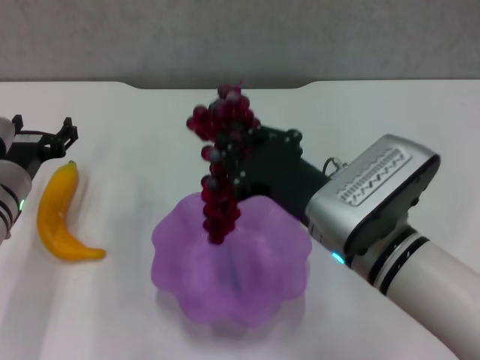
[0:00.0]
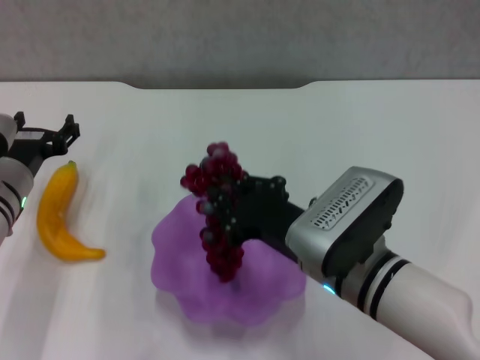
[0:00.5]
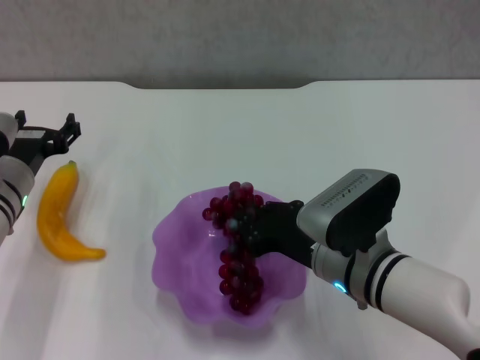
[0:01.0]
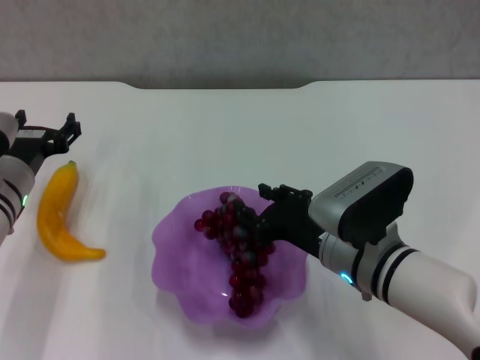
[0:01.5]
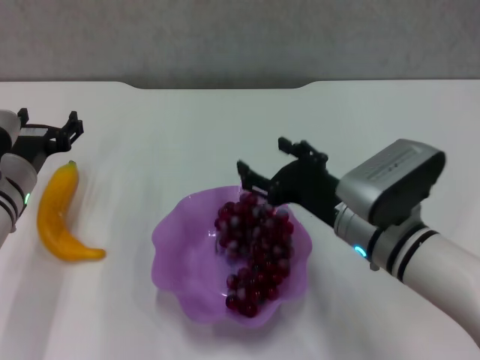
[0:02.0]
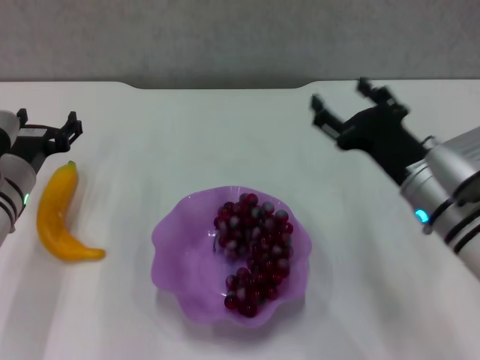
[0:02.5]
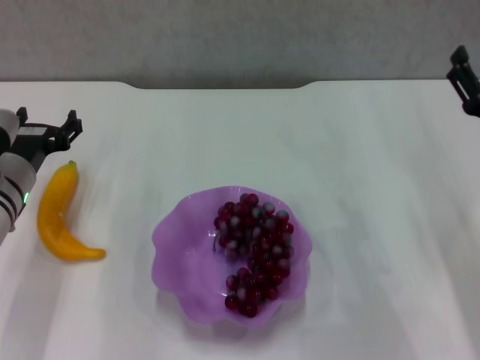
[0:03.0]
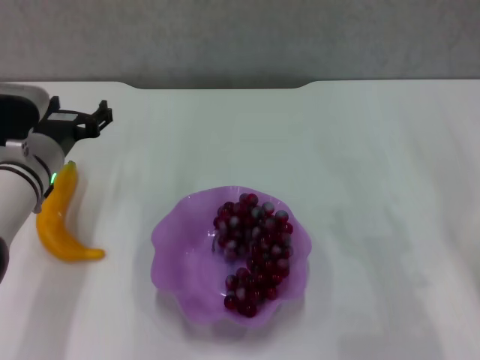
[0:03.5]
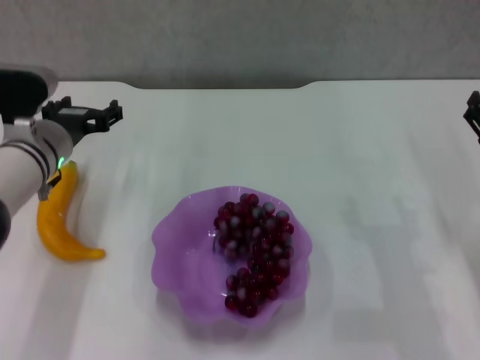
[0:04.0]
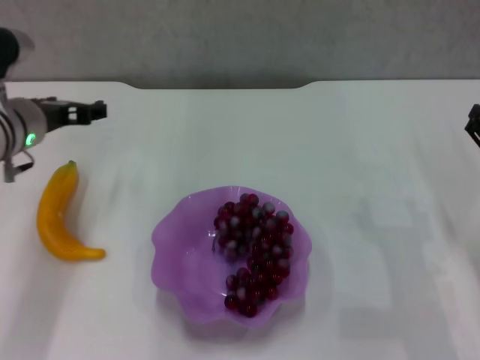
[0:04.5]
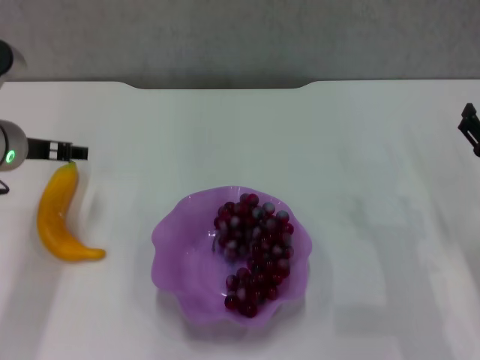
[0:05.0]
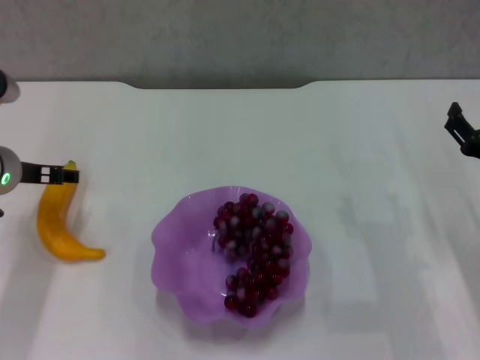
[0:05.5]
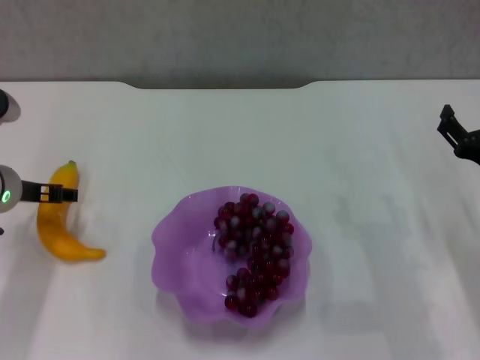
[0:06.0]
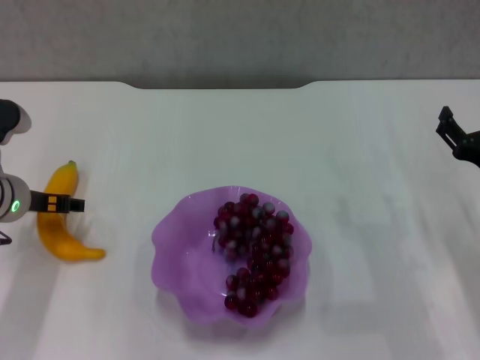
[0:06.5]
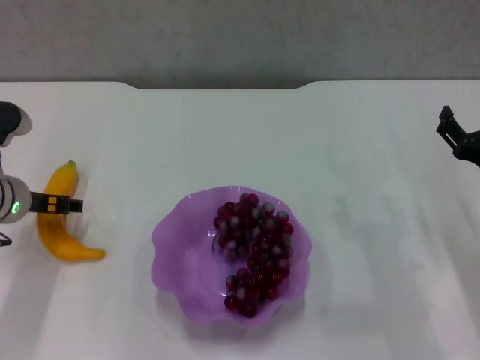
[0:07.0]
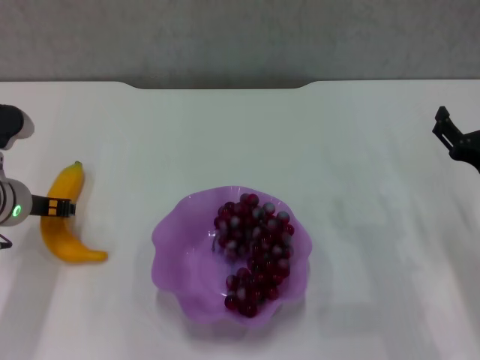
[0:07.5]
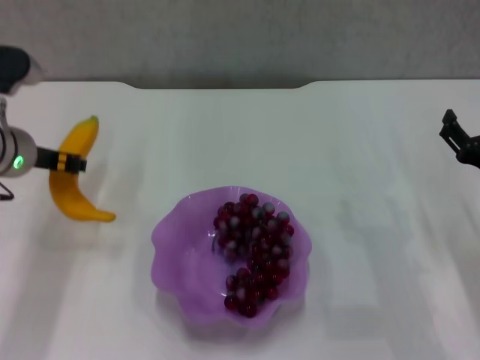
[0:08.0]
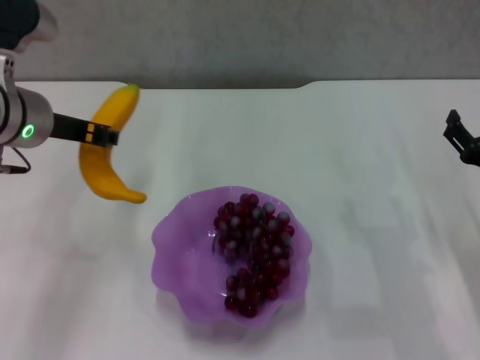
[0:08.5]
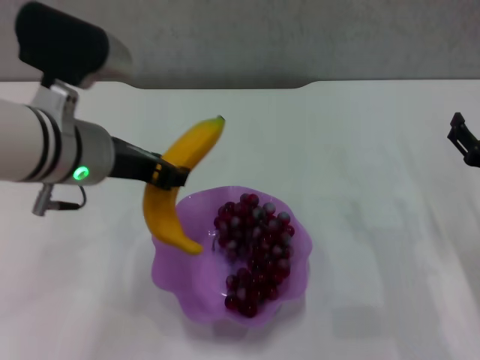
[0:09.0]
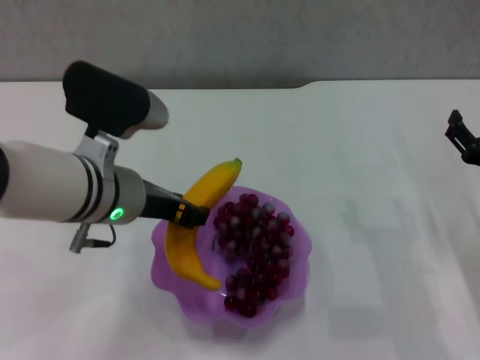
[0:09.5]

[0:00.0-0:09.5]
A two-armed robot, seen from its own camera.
Step, 0:02.0 to 0:07.5: Grasp the banana with left gripper.
0:00.0 to 0:02.0: The right gripper changes place by roughly 5 cm, and opens up.
0:02.0 to 0:04.0: The left gripper moves about 5 cm. The right gripper heads to the right, covering roughly 15 cm.
0:04.0 to 0:05.5: The left gripper changes place by about 5 cm.
0:05.5 to 0:07.5: The left gripper closes its fingers.
0:07.5 to 0:09.5: The left gripper moves to the right and upward, roughly 15 cm.

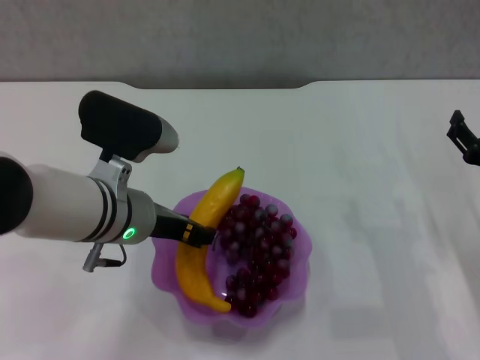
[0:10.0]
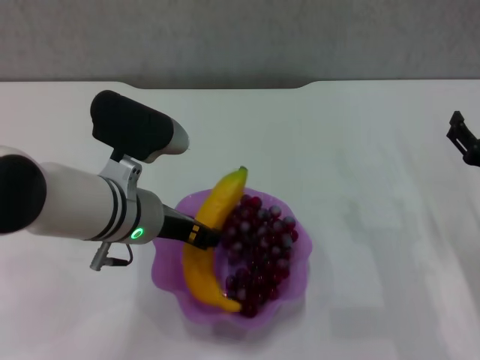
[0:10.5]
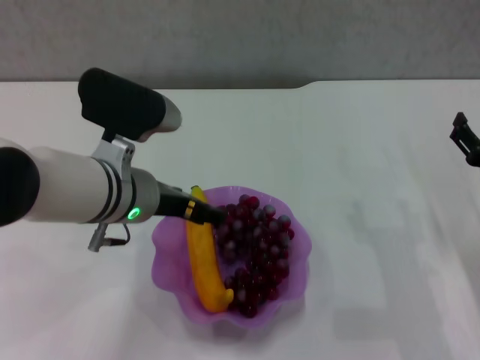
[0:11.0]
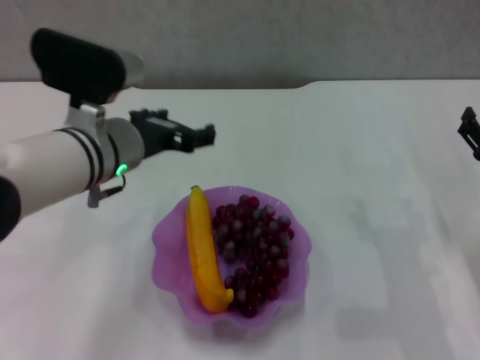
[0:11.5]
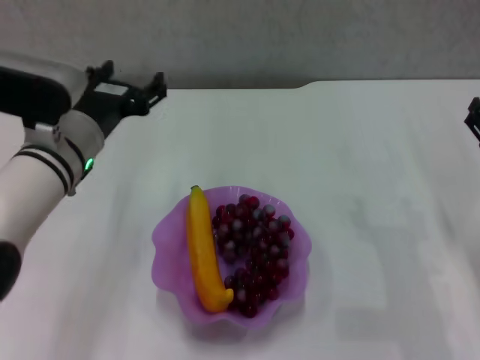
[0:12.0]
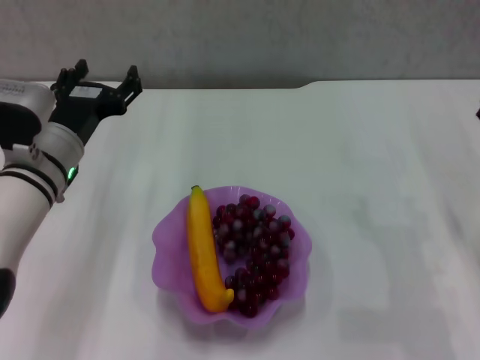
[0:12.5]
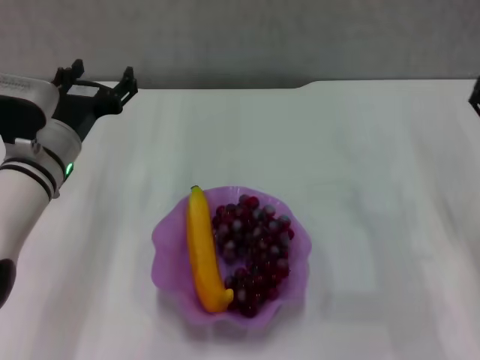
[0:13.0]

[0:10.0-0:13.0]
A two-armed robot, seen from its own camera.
0:10.0 to 0:11.5: The left gripper opens.
0:11.5 to 0:13.0: The left gripper shifts some 10 cm to the left and downward.

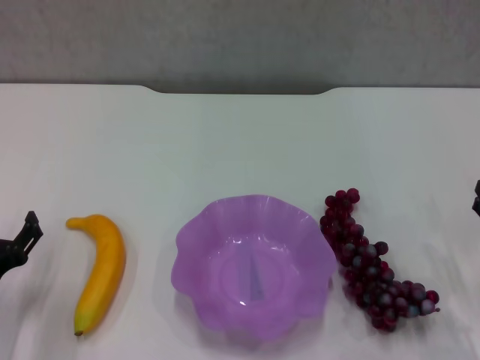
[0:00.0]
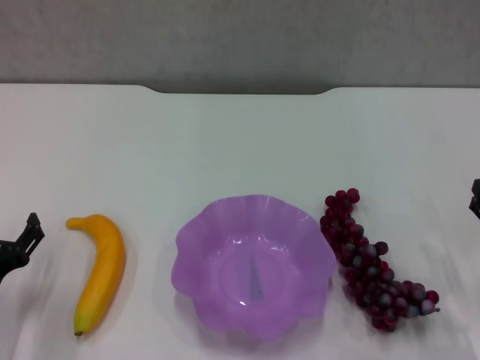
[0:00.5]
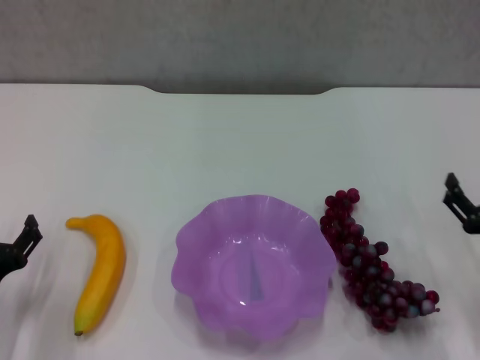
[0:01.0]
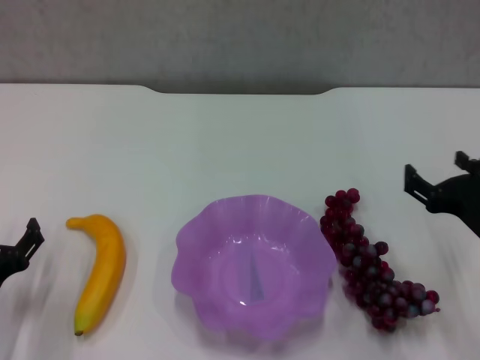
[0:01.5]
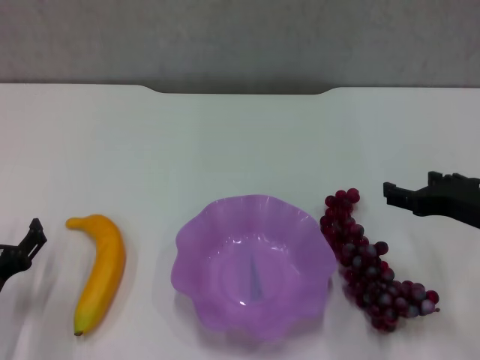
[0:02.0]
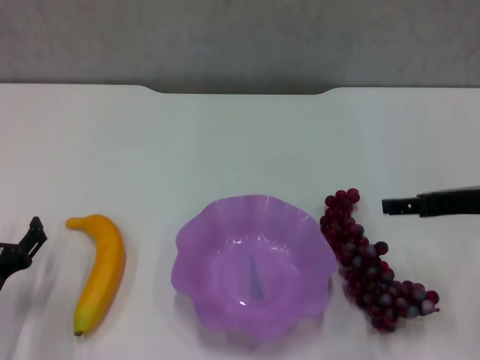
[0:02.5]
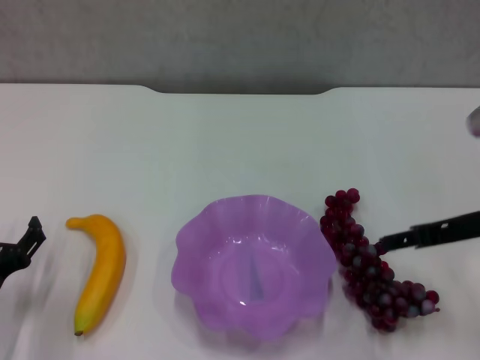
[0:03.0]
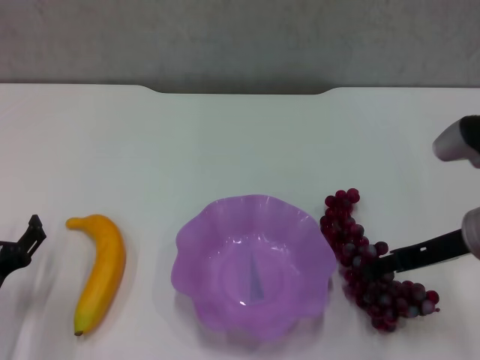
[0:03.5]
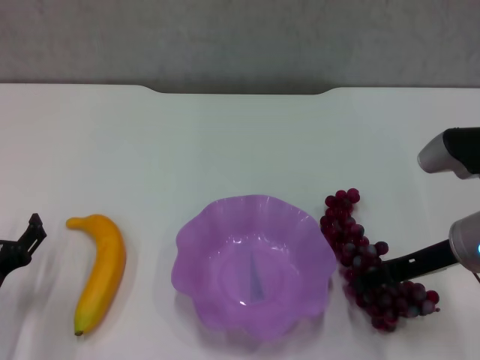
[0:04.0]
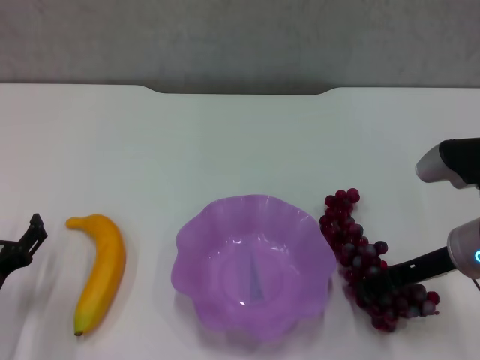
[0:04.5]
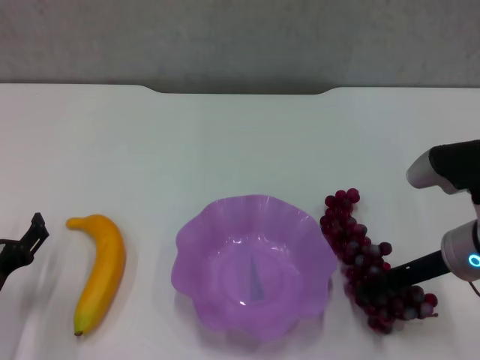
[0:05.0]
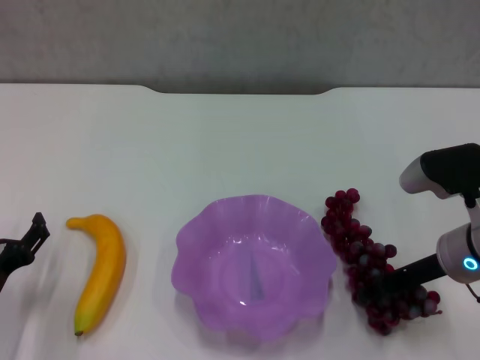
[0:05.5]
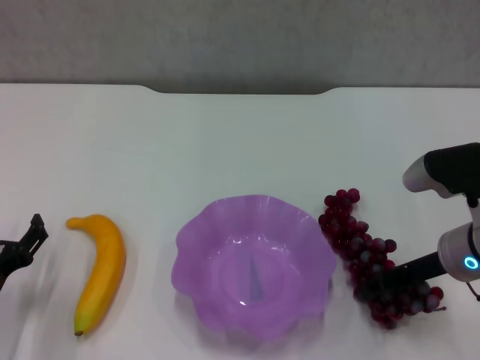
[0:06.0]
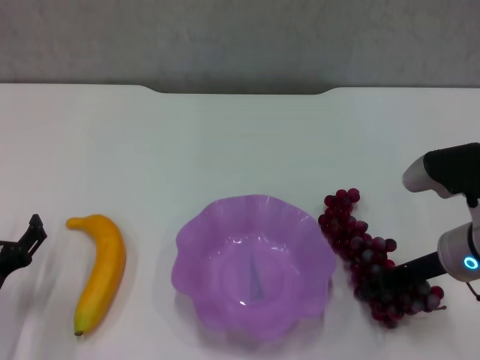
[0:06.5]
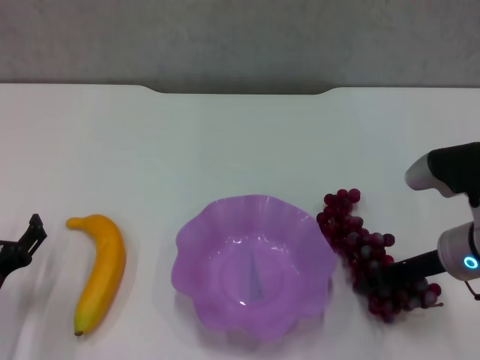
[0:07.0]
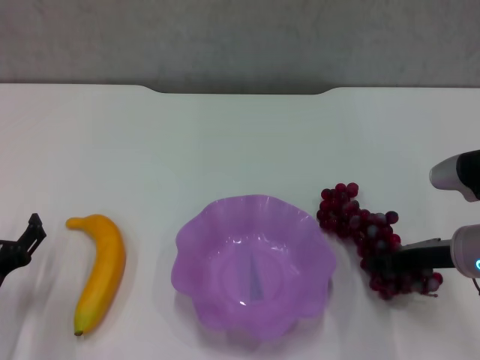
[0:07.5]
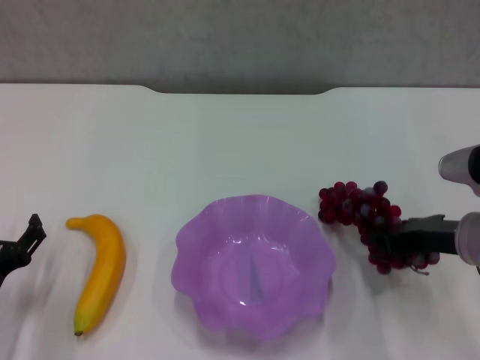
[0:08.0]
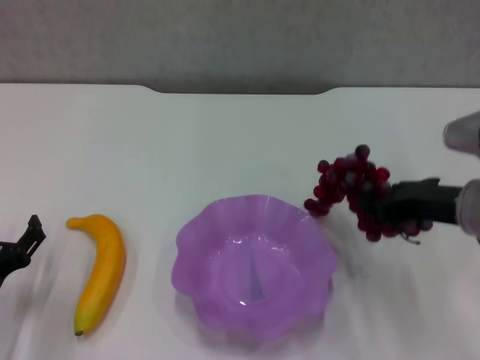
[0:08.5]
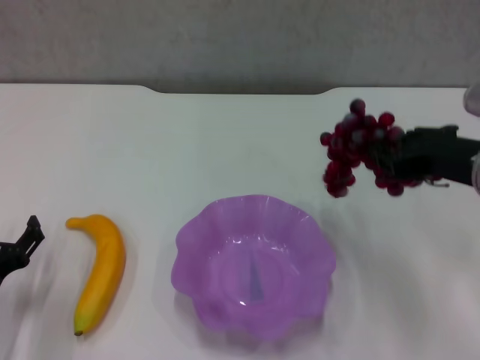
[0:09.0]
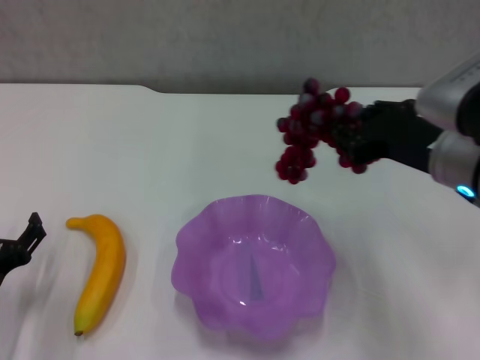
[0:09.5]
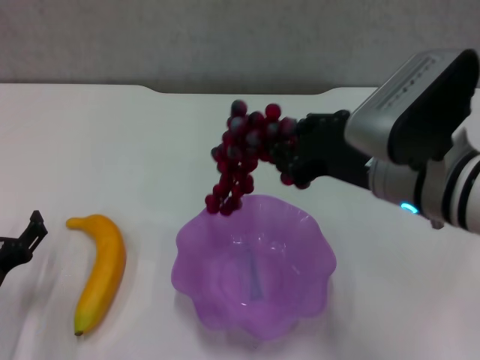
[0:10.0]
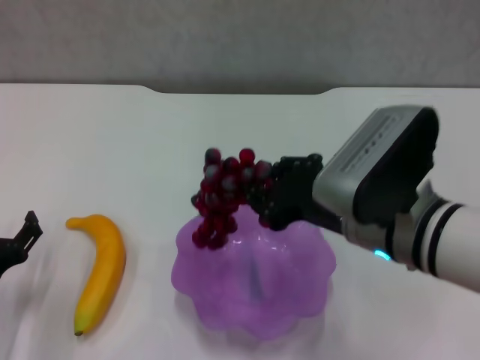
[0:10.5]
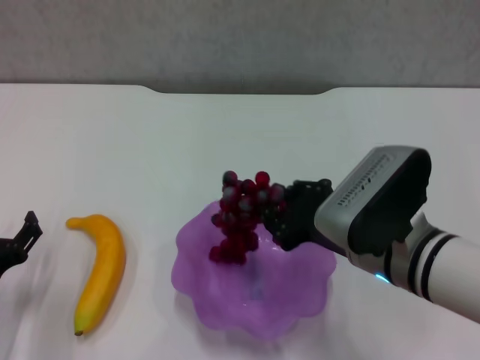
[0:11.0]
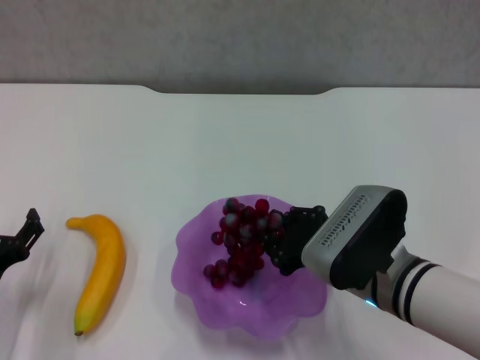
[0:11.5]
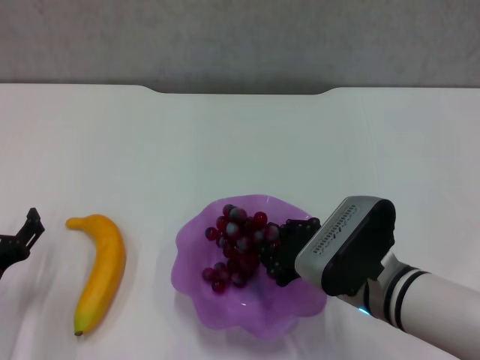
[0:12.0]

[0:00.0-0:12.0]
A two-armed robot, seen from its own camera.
Step, 0:00.0 to 0:05.5: Grasp the grape with right gripper.
0:00.0 to 0:02.0: The right gripper moves upward, to the left and forward, roughly 15 cm.
0:04.0 to 0:06.0: The right gripper closes its fingers.
0:08.0 to 0:10.0: The right gripper moves to the left and upward, approximately 15 cm.
0:10.0 to 0:12.0: The right gripper goes some 15 cm downward.

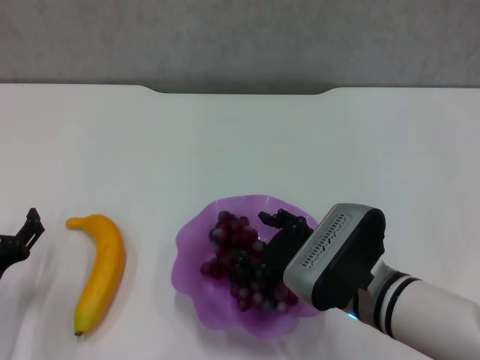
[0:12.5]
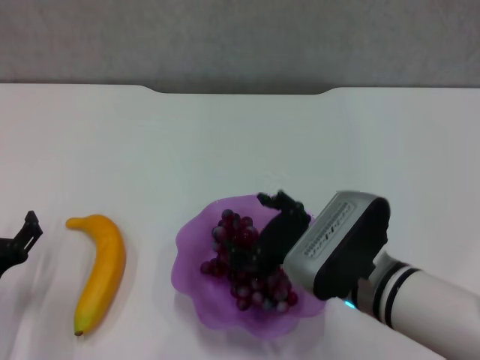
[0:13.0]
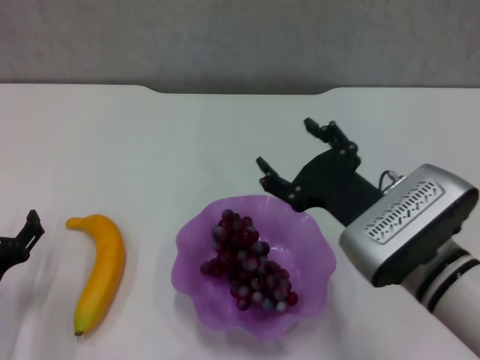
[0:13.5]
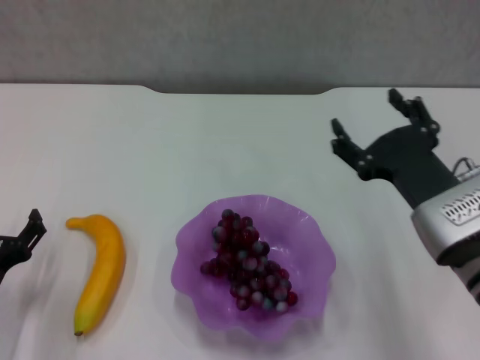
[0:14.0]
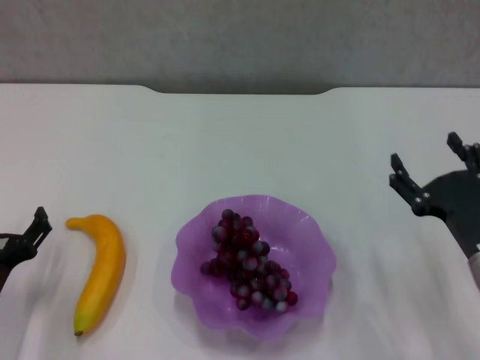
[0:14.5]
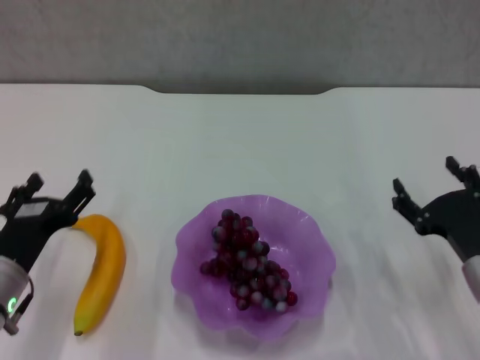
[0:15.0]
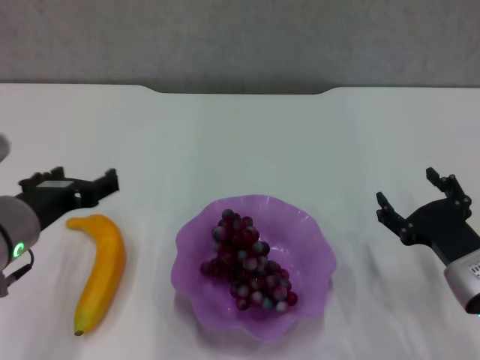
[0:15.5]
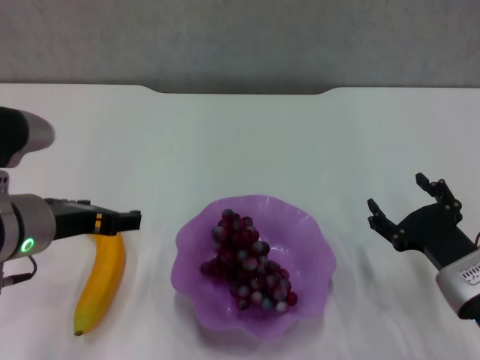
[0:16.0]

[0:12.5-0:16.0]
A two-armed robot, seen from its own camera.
0:12.5 to 0:14.5: The right gripper shifts some 15 cm to the right, and opens its fingers.
0:14.5 to 0:16.0: The left gripper shifts roughly 15 cm upward and to the right.
